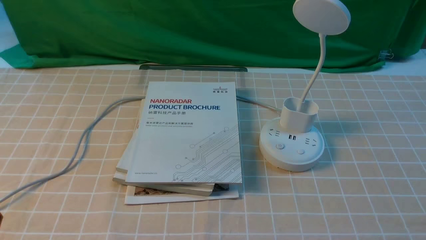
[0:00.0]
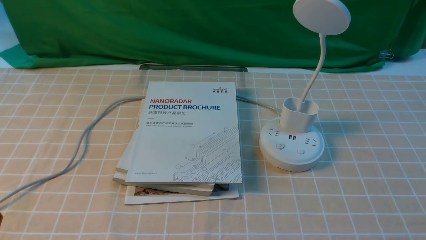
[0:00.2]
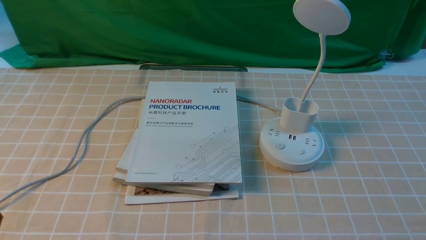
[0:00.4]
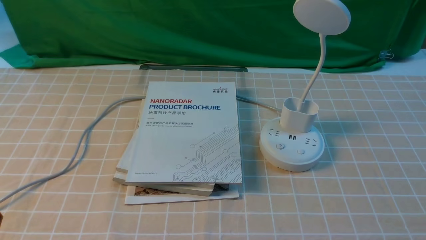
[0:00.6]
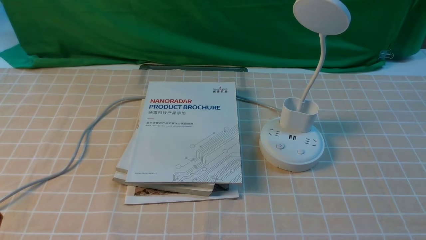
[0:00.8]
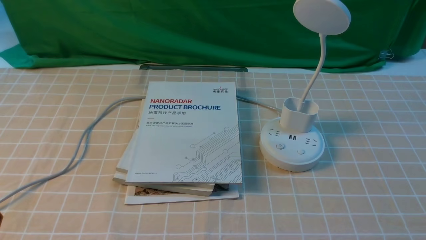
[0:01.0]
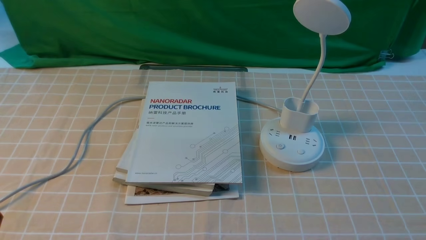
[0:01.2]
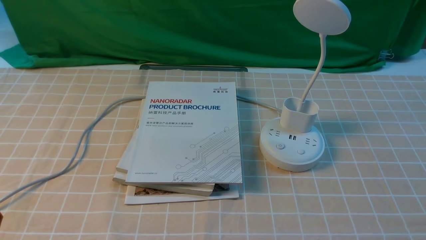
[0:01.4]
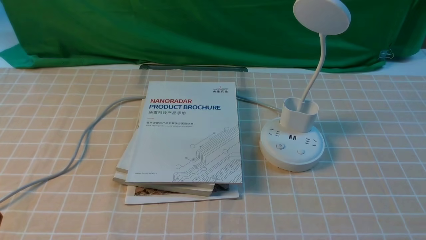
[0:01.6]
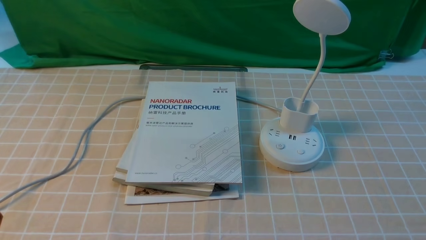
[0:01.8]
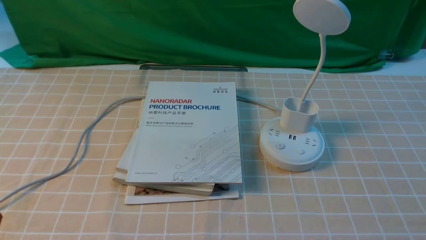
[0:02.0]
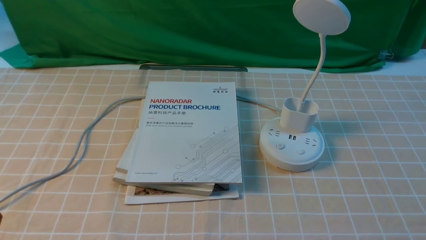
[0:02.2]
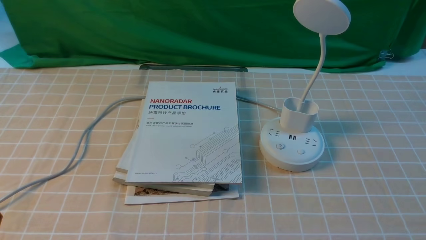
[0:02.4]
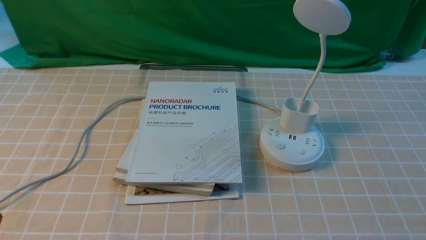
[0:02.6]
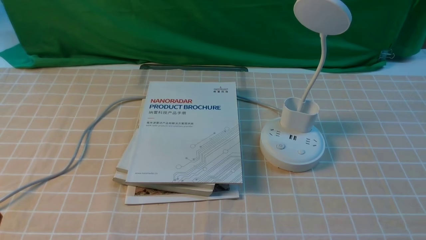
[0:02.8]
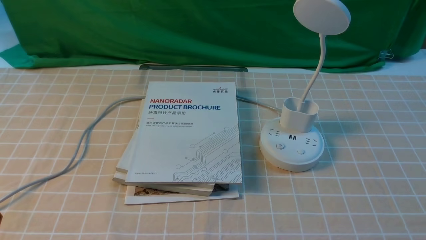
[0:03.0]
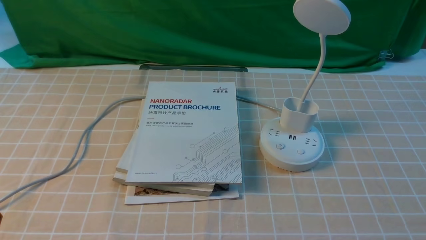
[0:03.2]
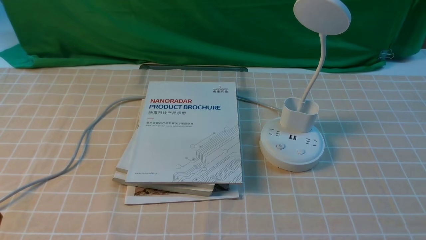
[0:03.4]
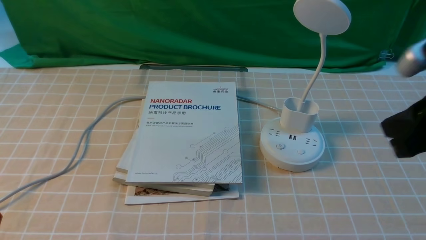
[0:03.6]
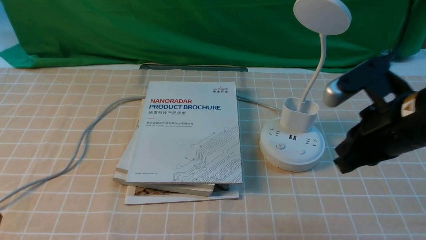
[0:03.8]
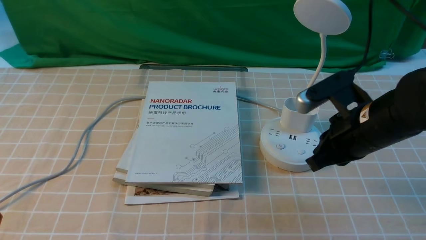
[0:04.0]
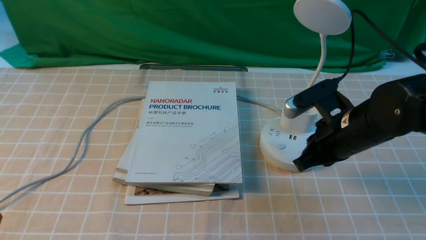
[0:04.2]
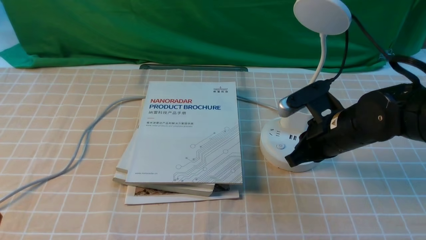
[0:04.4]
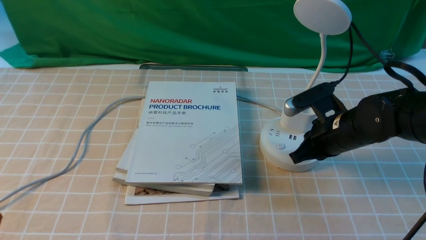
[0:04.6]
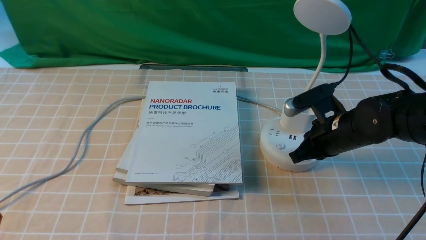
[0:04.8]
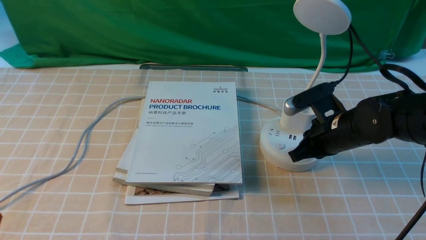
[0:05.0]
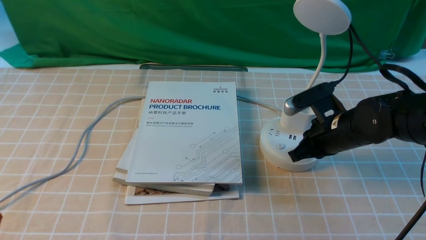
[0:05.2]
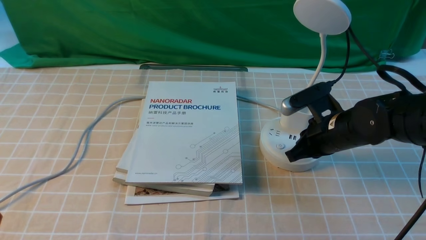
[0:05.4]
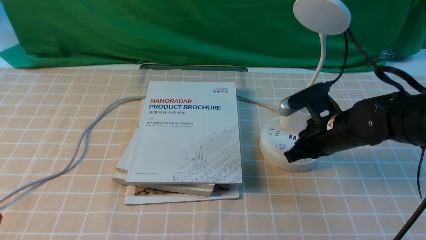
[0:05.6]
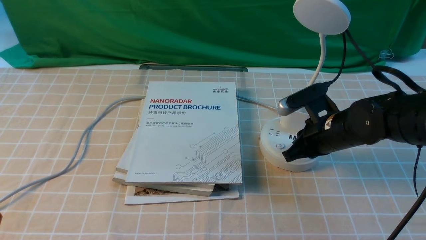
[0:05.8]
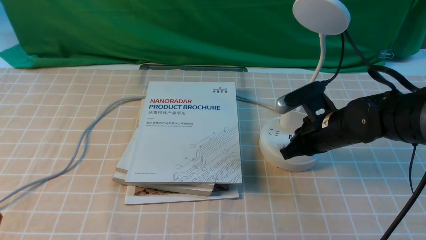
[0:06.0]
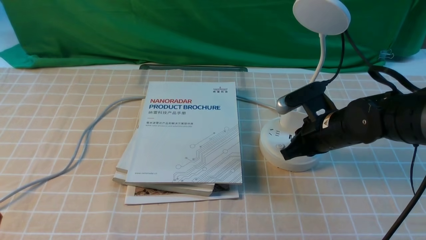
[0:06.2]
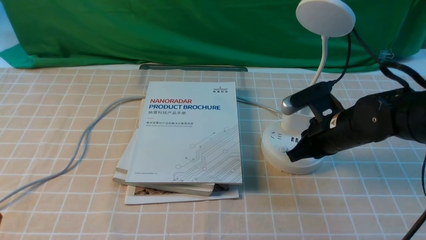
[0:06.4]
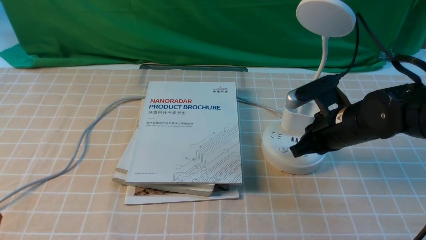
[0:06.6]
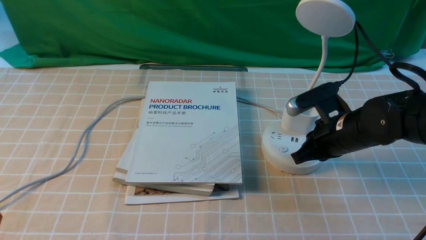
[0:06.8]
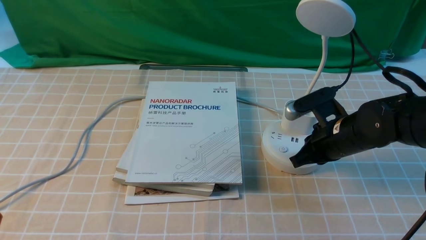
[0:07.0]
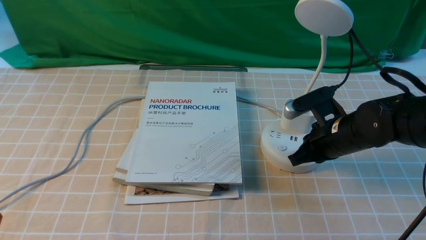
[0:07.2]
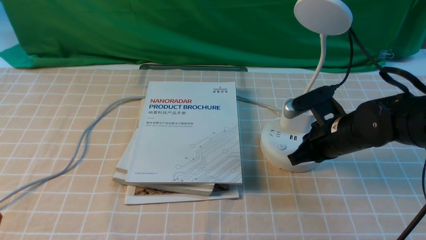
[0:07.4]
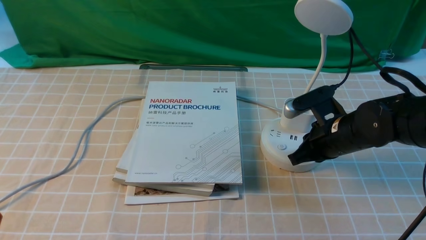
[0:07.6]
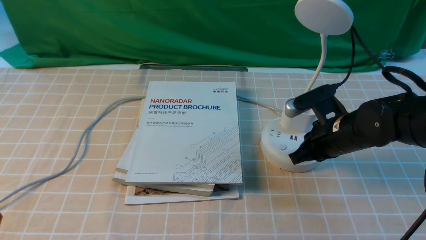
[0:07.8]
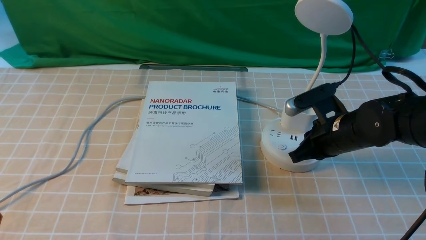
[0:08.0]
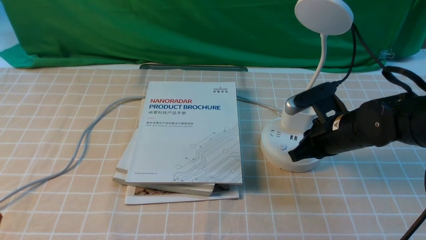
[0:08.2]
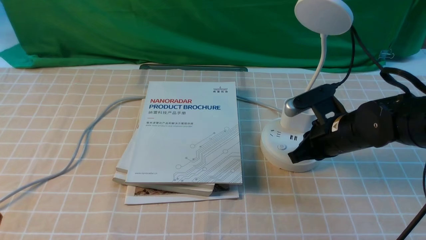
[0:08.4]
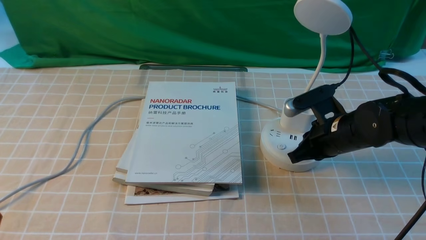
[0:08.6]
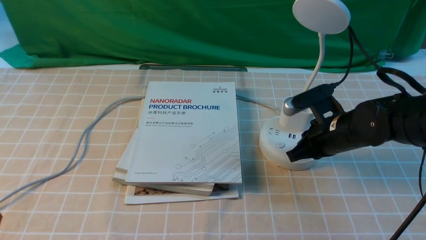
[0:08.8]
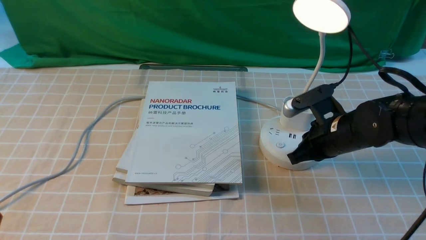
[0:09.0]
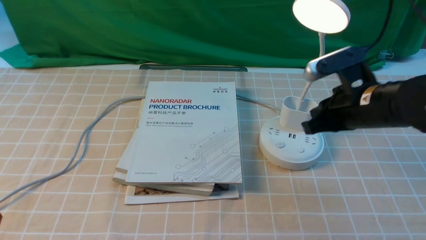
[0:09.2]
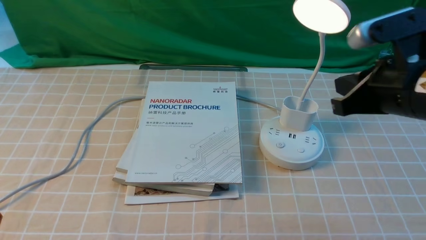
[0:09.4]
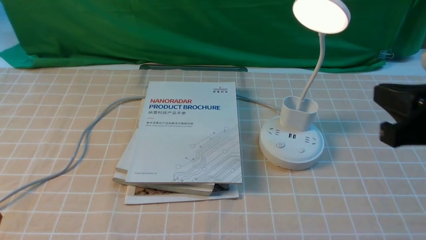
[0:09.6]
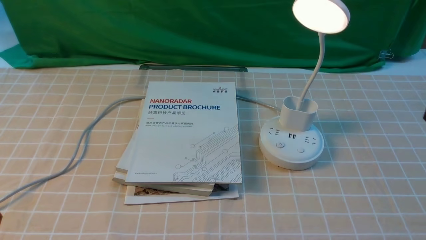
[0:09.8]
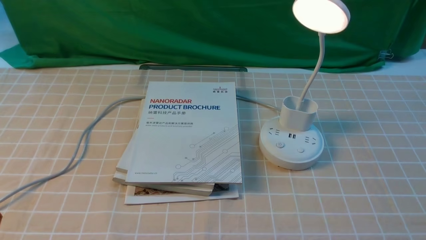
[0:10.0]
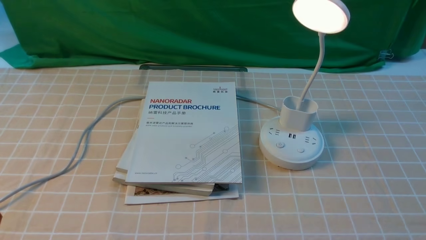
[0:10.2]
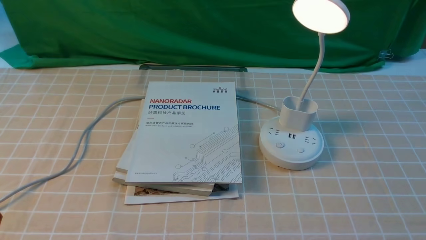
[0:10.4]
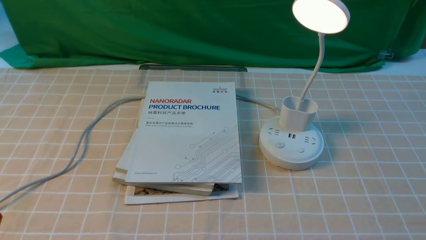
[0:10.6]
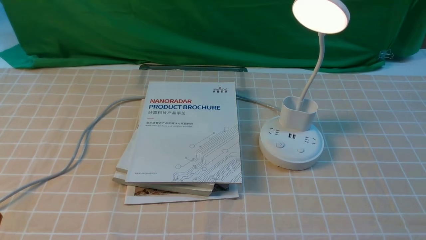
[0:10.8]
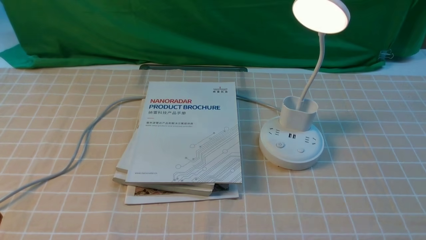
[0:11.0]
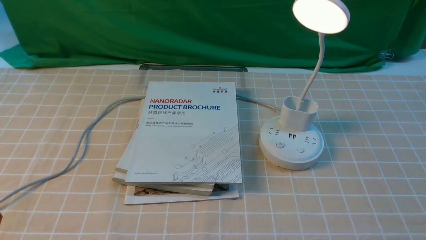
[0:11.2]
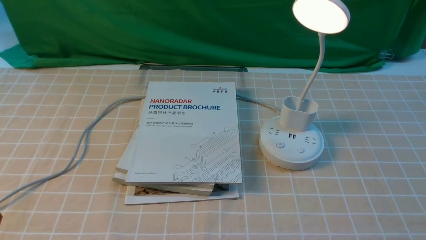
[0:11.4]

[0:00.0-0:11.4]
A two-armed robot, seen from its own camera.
Step, 0:00.0 to 0:09.2: use the right arm to press the button switch on the lamp holder.
0:00.0 to 0:01.4: The two grippers keep their place.
0:02.8 to 0:04.2: The right gripper shifts approximately 30 cm forward and to the left, and closes its fingers.
0:04.2 to 0:05.6: The right gripper shifts by some 5 cm.
0:05.6 to 0:07.2: The grippers move only a little.
0:07.2 to 0:08.6: The two grippers keep their place.
0:08.6 to 0:10.0: The right gripper travels backward and upward by about 30 cm.

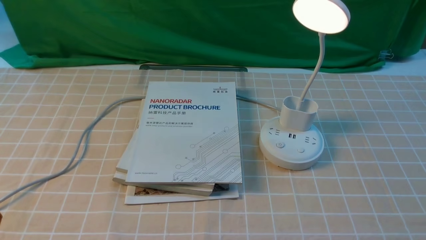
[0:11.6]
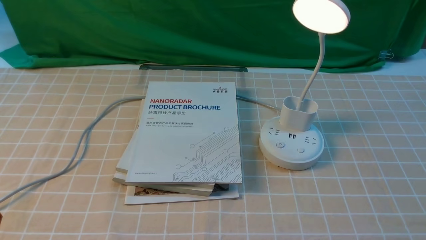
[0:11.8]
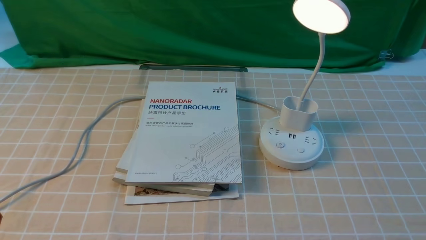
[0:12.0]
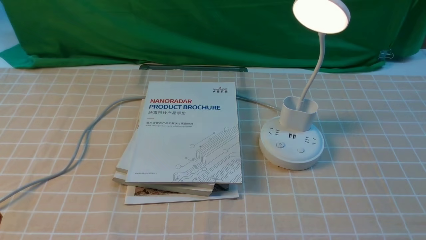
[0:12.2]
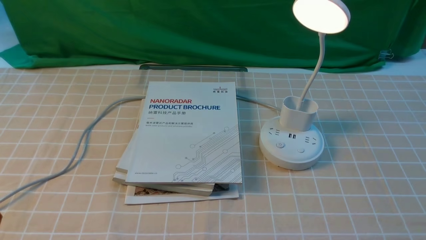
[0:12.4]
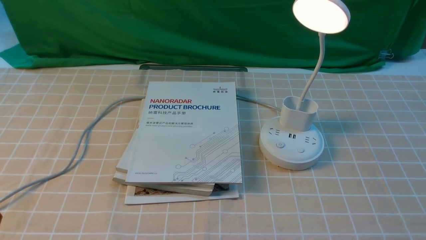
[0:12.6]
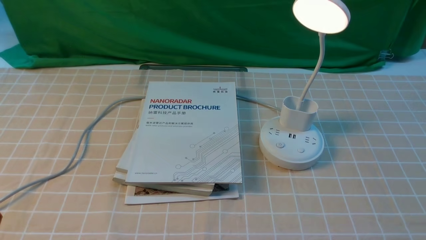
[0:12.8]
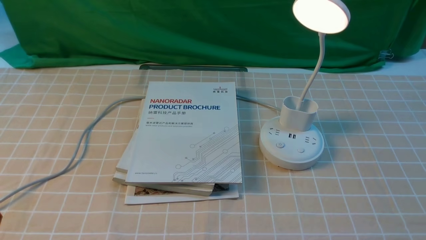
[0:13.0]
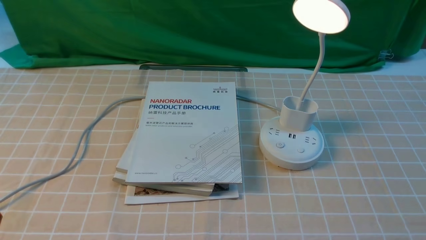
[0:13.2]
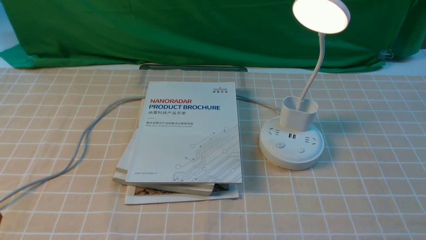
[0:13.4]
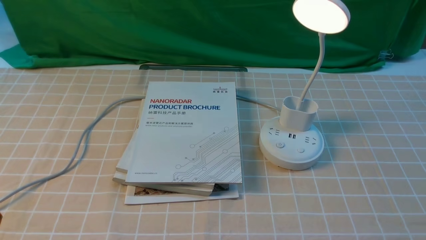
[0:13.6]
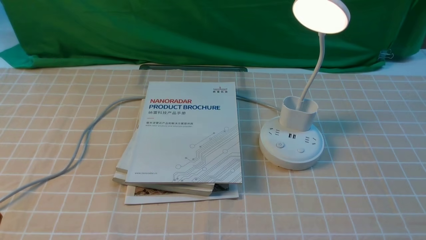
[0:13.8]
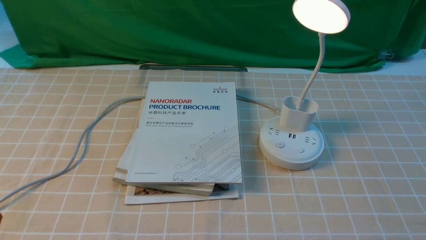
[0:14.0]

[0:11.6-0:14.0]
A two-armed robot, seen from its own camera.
0:11.6 to 0:14.0: Both grippers stay about where they are.
